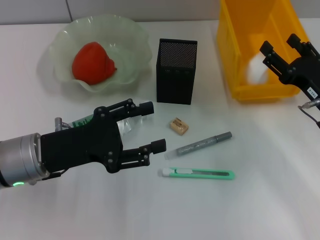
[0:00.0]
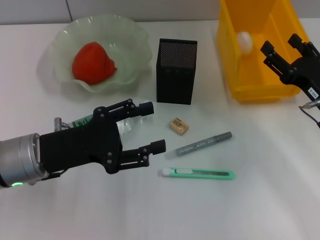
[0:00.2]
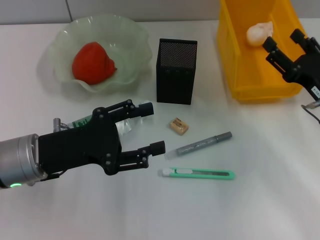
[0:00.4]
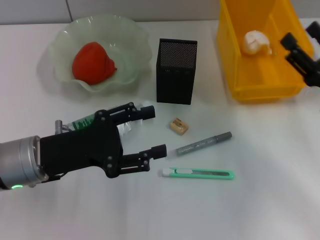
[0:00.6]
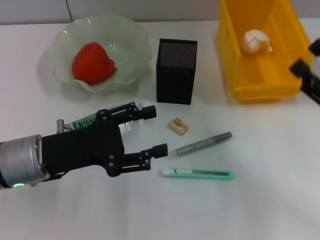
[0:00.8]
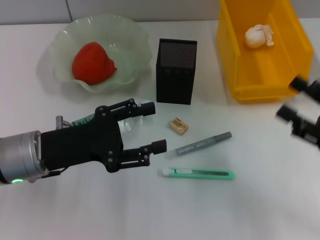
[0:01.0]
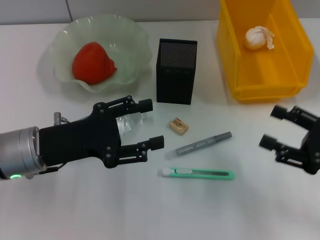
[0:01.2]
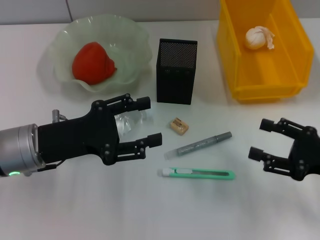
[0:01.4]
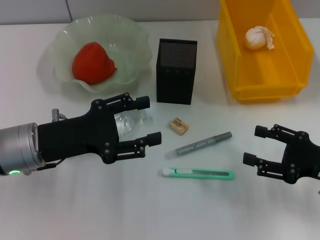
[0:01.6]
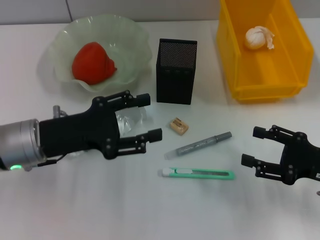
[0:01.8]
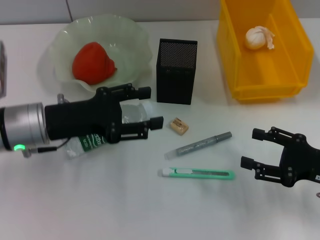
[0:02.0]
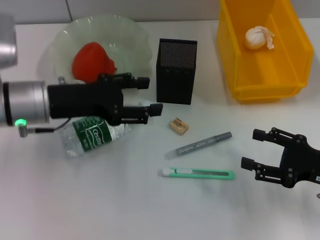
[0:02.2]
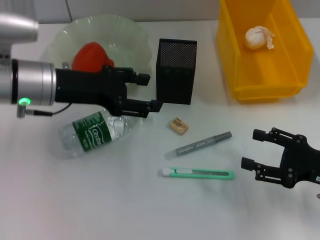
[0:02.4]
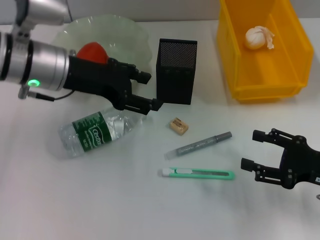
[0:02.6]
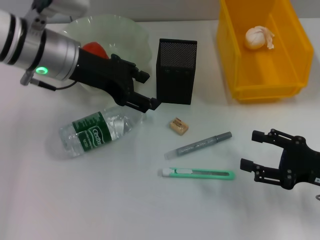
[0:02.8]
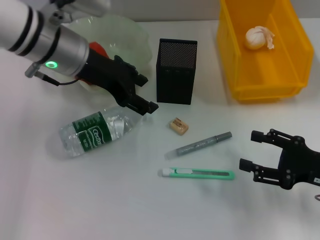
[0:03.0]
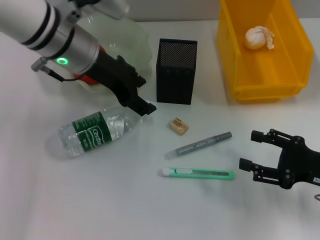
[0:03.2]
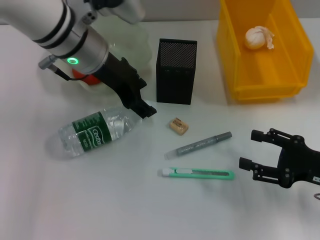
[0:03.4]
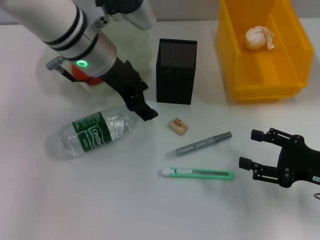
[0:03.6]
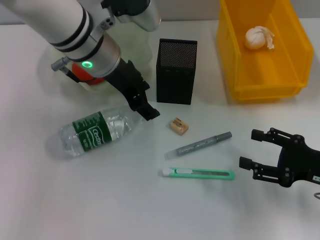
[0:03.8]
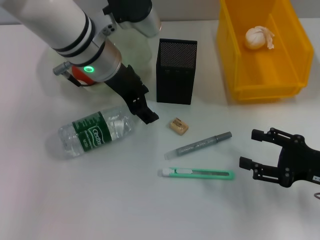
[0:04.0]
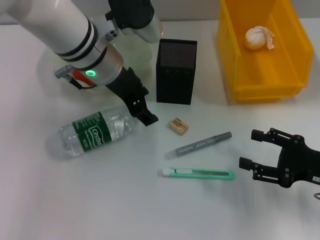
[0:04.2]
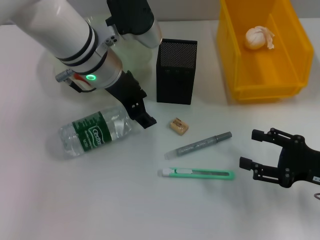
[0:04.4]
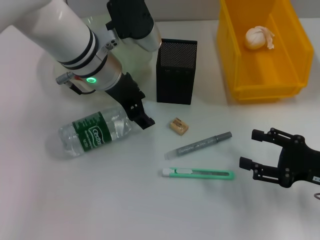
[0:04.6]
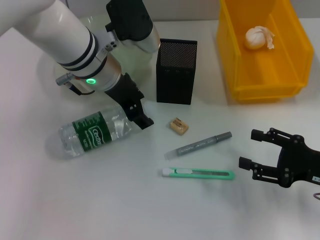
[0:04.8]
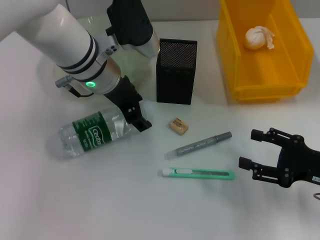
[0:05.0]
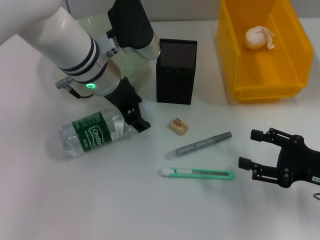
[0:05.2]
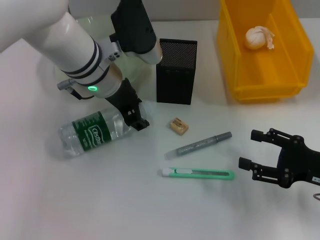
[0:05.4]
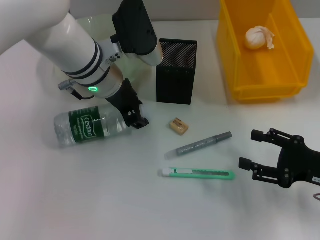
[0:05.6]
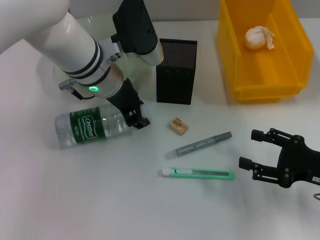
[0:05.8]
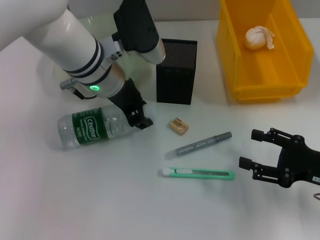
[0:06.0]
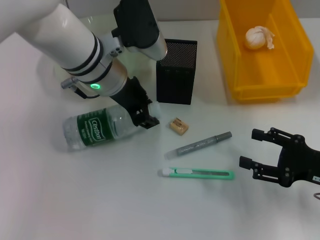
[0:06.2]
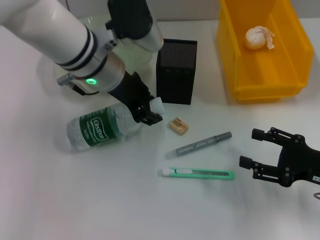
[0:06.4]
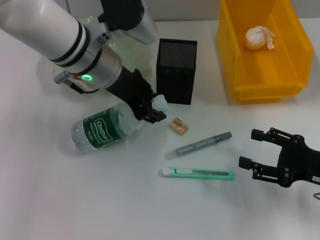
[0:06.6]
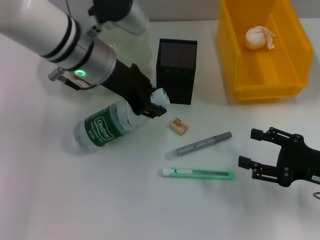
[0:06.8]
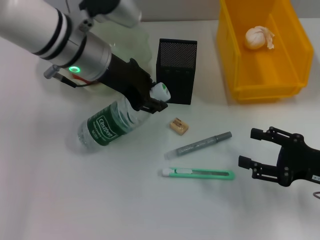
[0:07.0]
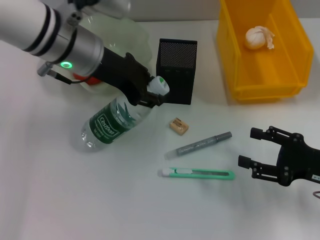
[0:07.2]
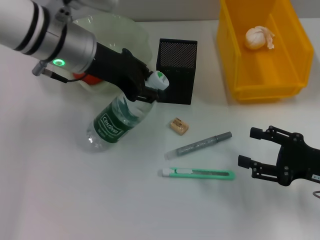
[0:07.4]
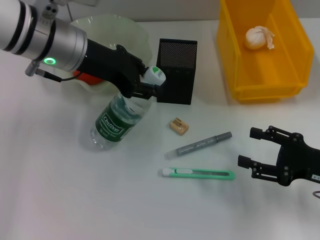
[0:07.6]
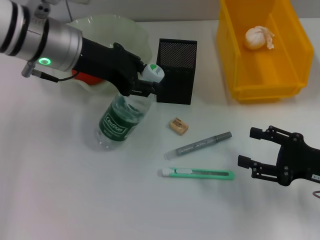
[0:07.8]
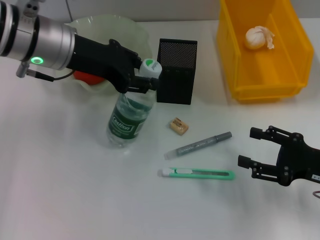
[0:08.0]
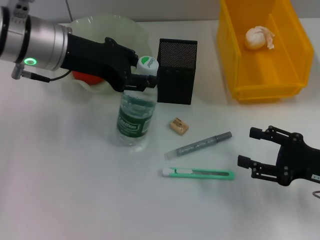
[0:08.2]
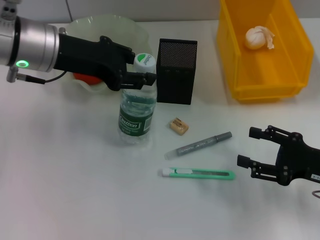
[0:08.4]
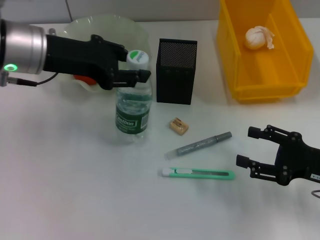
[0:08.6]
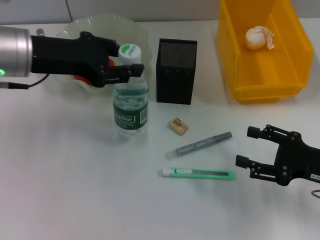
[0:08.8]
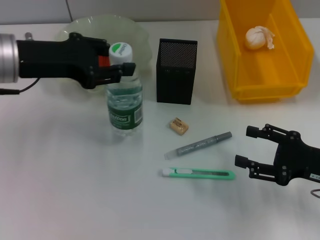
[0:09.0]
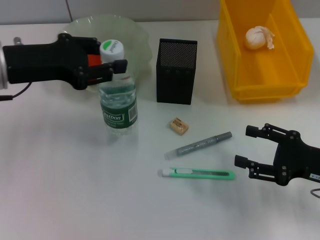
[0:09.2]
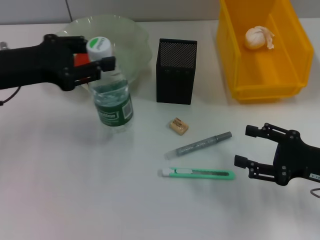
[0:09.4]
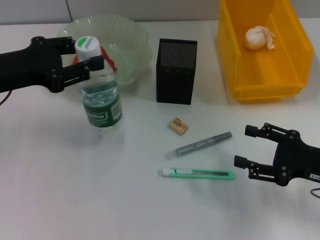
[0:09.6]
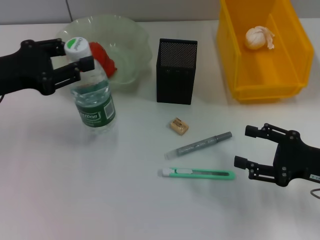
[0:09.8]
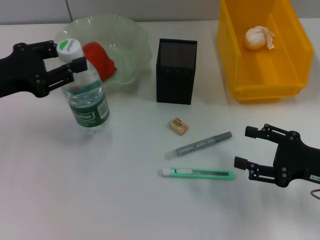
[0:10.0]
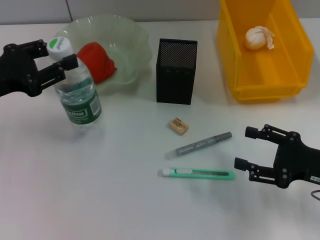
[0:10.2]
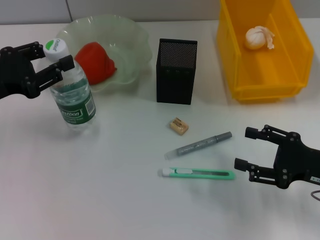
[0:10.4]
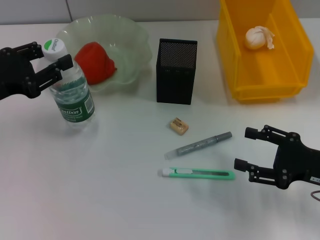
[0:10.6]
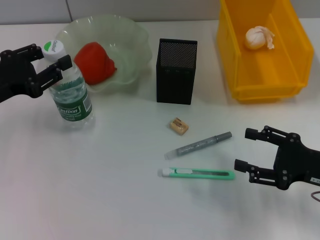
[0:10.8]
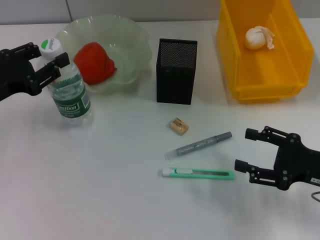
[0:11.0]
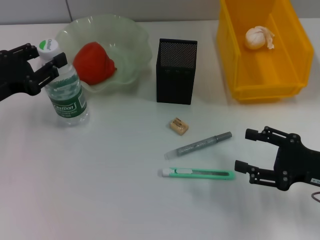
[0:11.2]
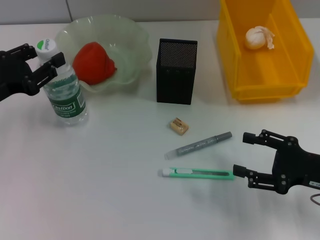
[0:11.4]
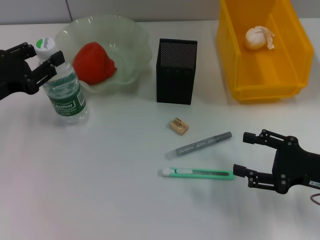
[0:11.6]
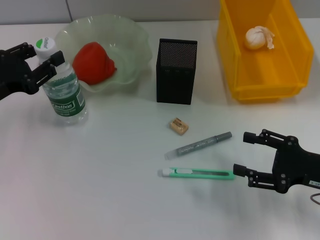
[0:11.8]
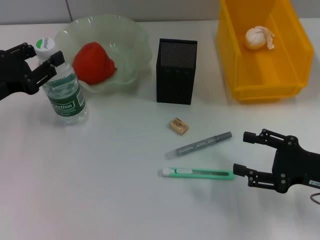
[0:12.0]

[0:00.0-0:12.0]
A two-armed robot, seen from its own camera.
Step, 0:00.6 to 0:06.0: Grab the water bottle with the left hand.
0:00.0 to 0:01.6: The right gripper heads backward, covering about 5 cm.
0:01.6 to 0:03.0: The left gripper heads forward, upward and to the right, covering roughly 15 cm.
0:03.0 to 0:04.4: The left gripper travels to the right by roughly 5 cm.
0:04.4 to 0:06.0: The left gripper closes up.
0:06.0 to 0:07.6: The left gripper shifts roughly 10 cm to the left and upward.
0:07.6 to 0:09.0: The left gripper shifts about 10 cm to the left.
0:09.0 to 0:10.4: The left gripper goes roughly 10 cm to the left and downward.
0:10.4 to 0:12.0: The grippers stay close to where they were, moving slightly.

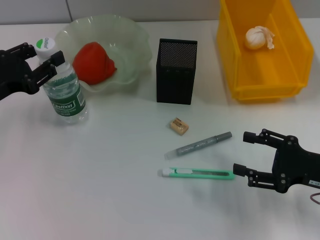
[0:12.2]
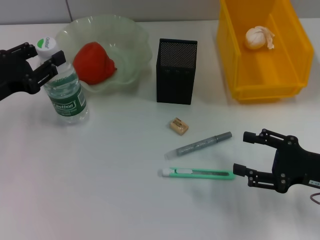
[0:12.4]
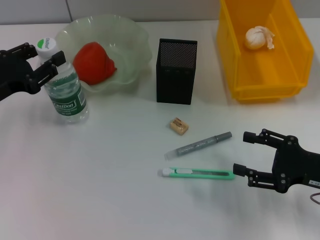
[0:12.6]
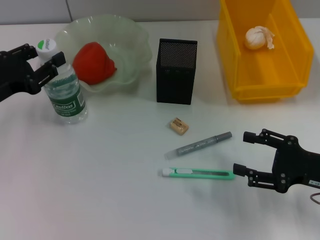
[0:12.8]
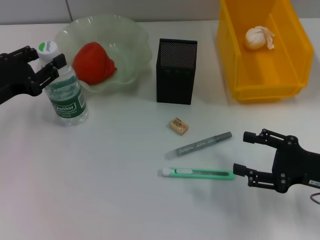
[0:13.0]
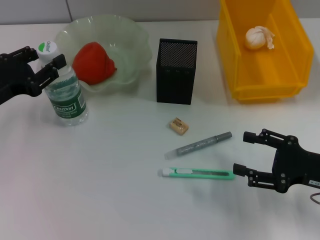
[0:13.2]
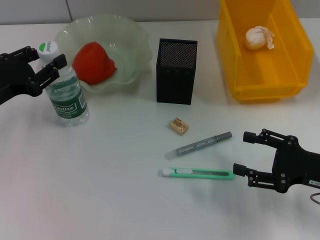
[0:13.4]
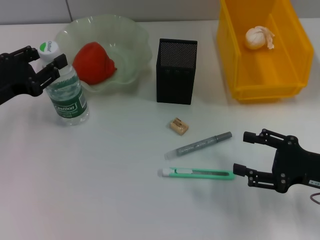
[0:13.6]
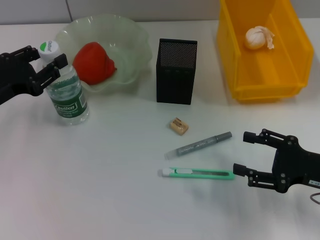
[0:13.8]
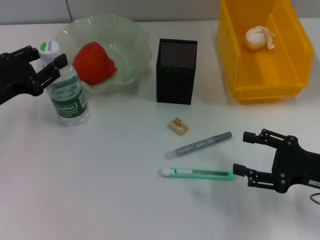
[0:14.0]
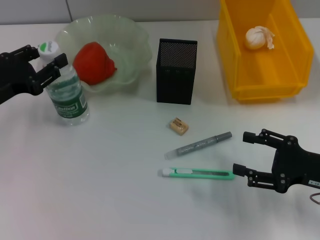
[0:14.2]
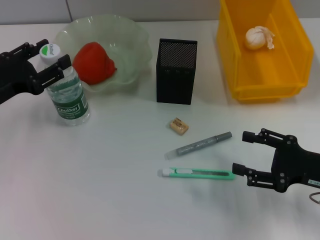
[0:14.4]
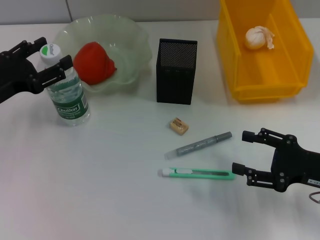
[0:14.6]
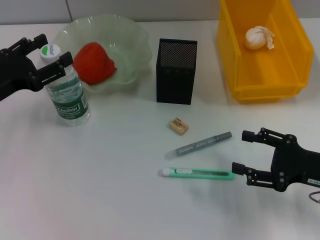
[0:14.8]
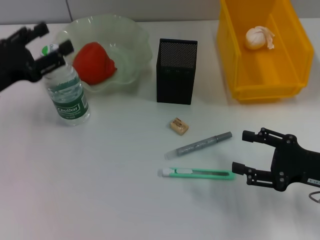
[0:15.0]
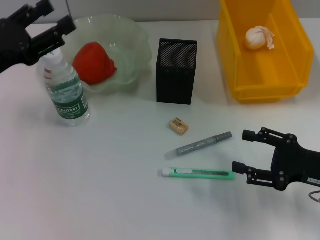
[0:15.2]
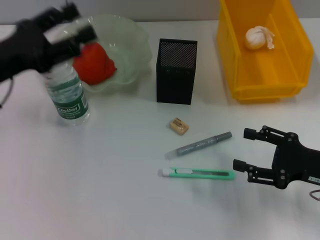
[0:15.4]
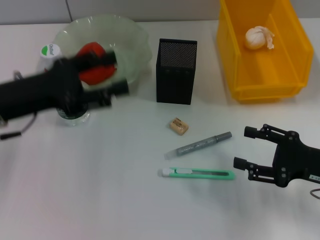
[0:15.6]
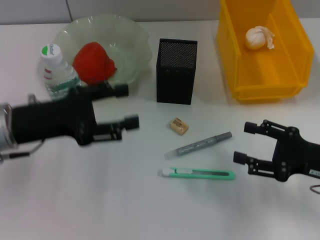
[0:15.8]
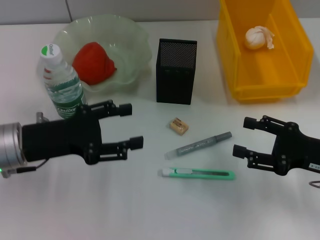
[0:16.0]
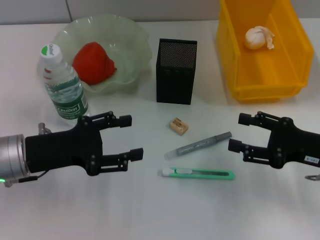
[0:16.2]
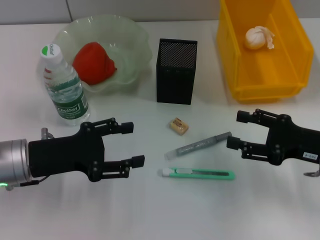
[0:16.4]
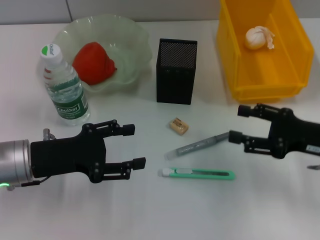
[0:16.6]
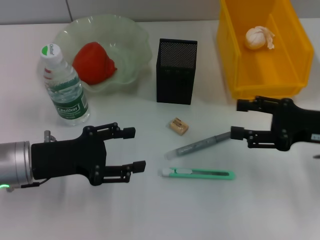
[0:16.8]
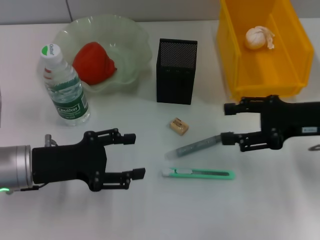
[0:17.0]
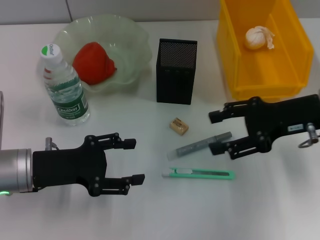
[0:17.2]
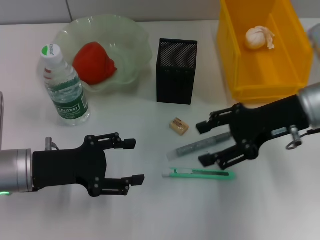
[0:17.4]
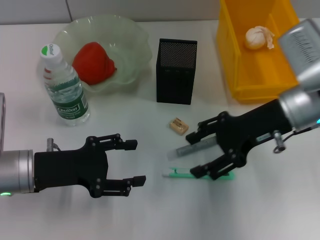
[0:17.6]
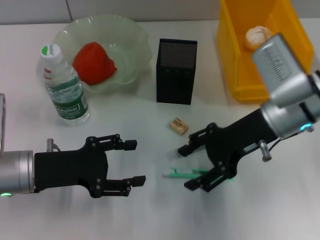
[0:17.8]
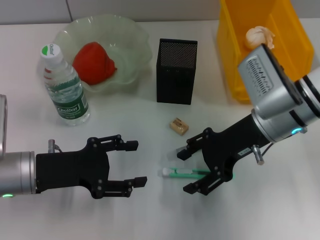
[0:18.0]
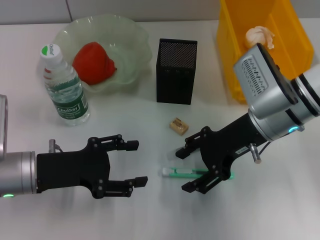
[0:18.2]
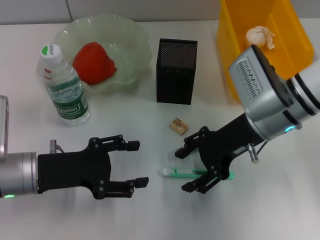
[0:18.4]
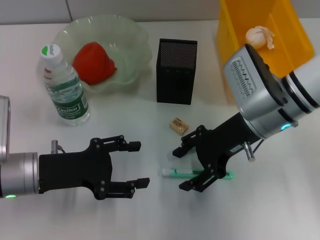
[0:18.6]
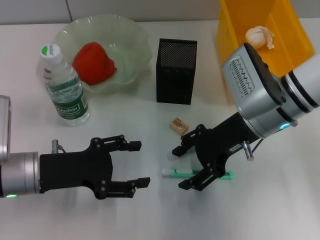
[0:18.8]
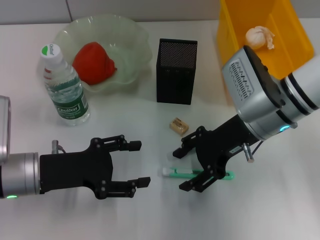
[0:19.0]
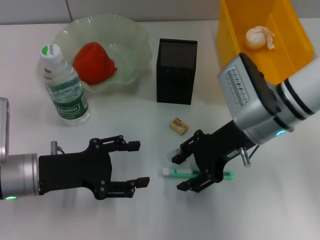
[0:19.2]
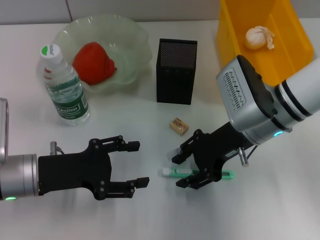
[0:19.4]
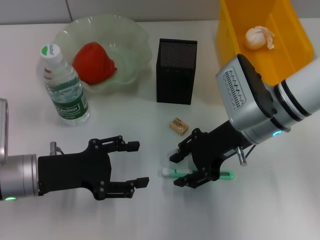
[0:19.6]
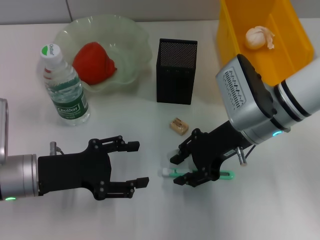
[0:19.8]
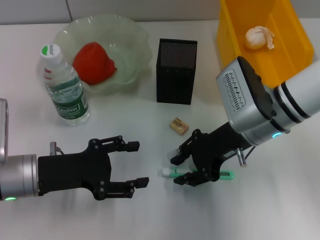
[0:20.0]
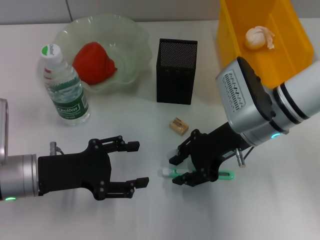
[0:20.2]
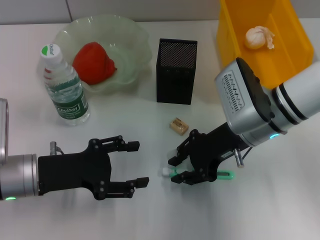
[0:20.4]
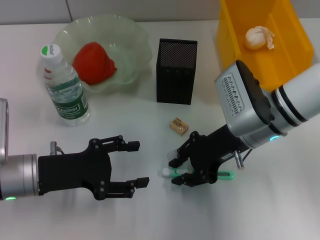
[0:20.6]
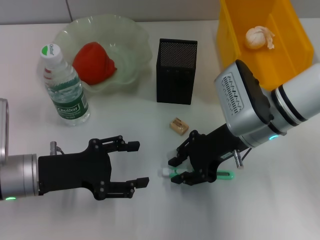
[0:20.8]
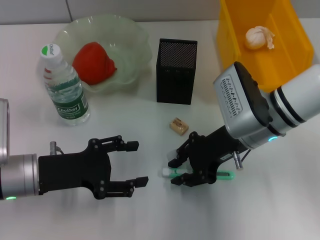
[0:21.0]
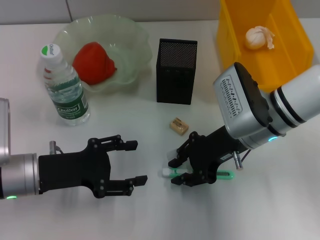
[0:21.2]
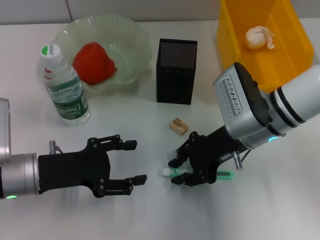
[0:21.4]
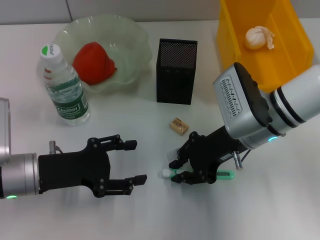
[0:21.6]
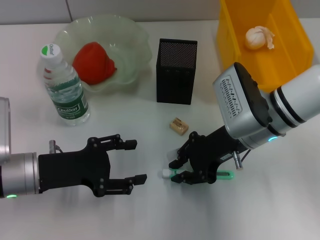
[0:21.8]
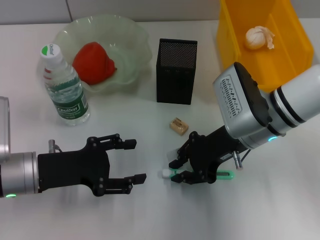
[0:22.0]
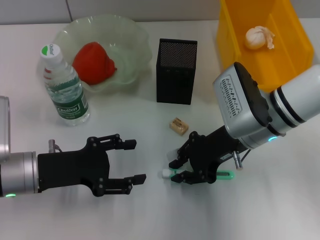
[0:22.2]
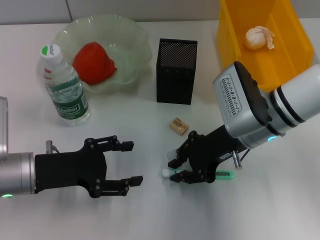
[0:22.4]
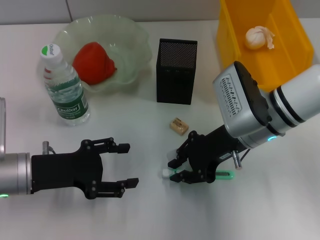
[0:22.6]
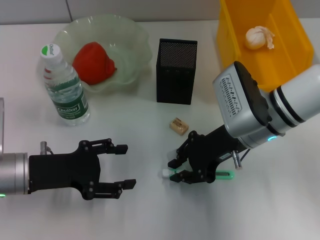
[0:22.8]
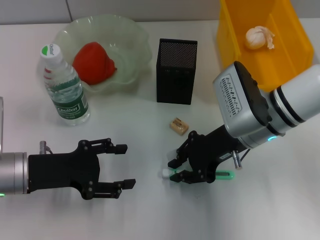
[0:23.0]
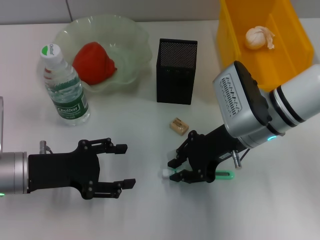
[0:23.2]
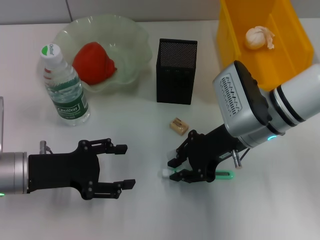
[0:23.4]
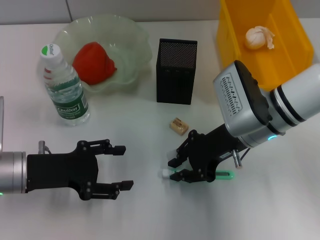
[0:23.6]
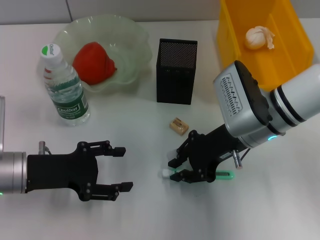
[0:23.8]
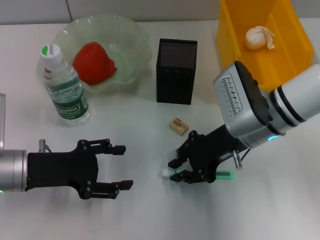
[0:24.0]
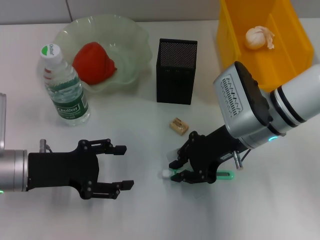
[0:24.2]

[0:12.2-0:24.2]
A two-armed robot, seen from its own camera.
Step, 0:12.2 to 0:14.8: Place the water bottle on the table with the left hand.
0:12.2 to 0:13.8: Both grippers stay about where they are.
0:13.8 to 0:15.2: The left gripper opens up.
0:15.2 to 0:16.6: The left gripper heads downward and to the right, covering approximately 10 cm.
0:16.6 to 0:18.2: The right gripper goes some 15 cm to the left and forward.
0:18.2 to 0:19.8: There are only small adjustments of the grippers.
0:19.8 to 0:22.6: Neither gripper changes place.
0:22.6 to 0:24.2: The two grippers keep their place.
